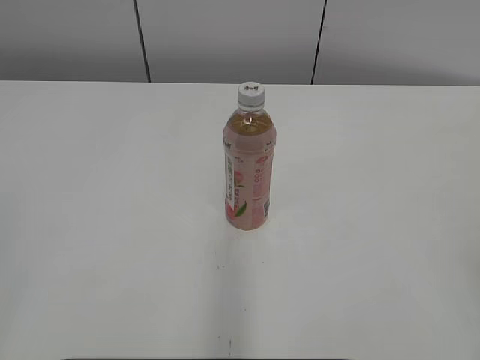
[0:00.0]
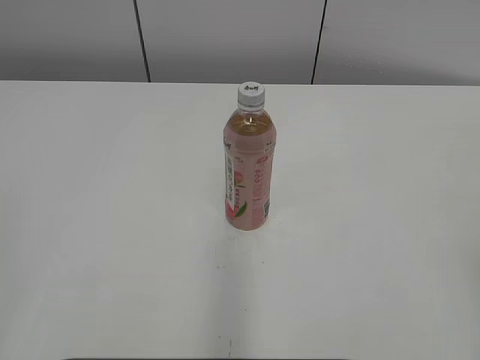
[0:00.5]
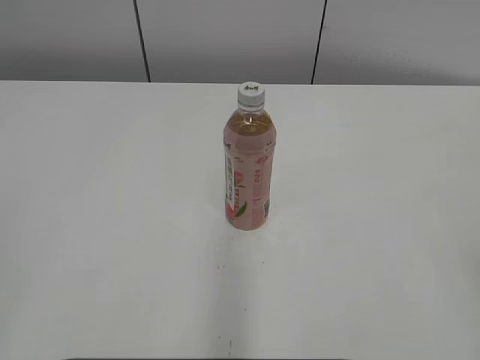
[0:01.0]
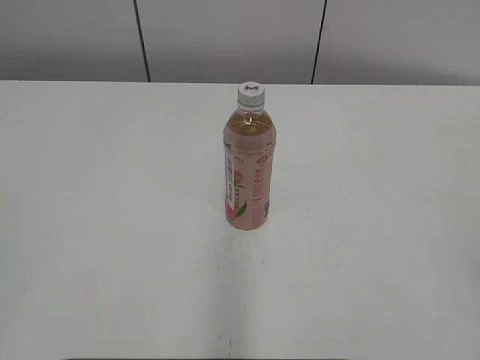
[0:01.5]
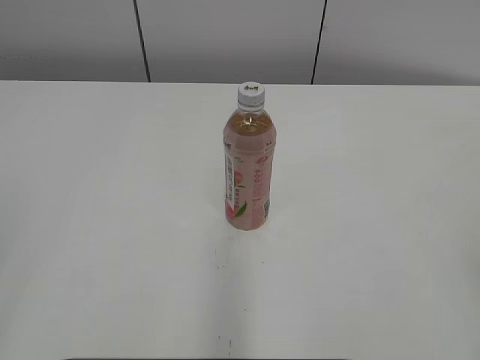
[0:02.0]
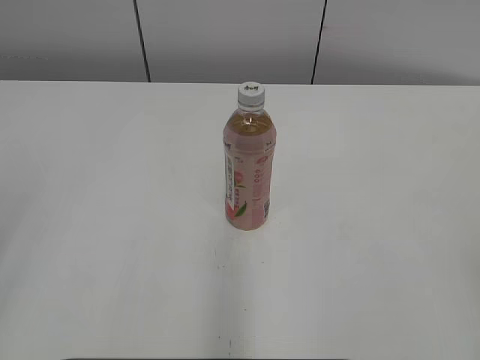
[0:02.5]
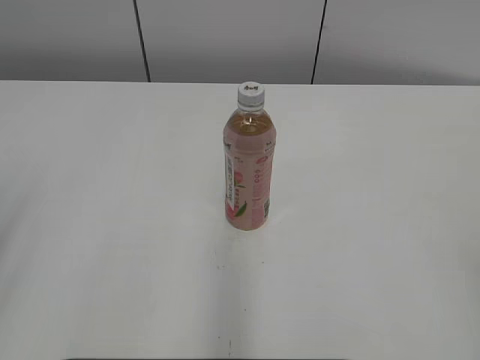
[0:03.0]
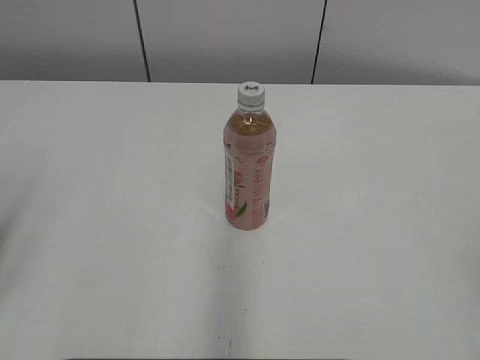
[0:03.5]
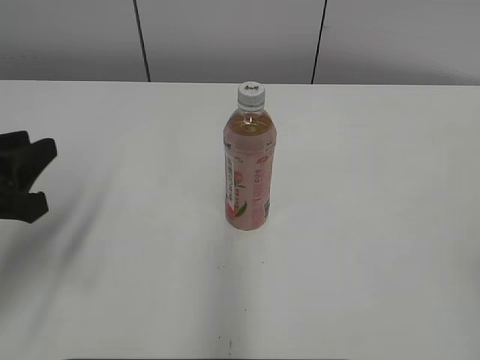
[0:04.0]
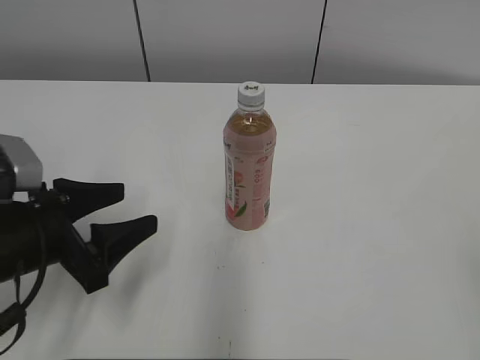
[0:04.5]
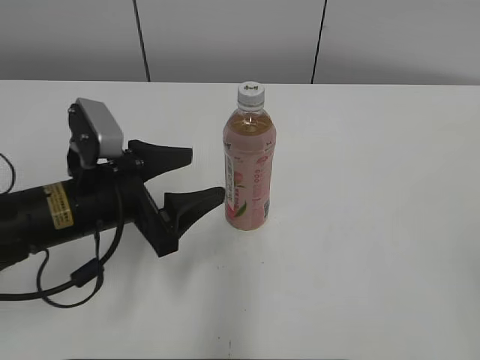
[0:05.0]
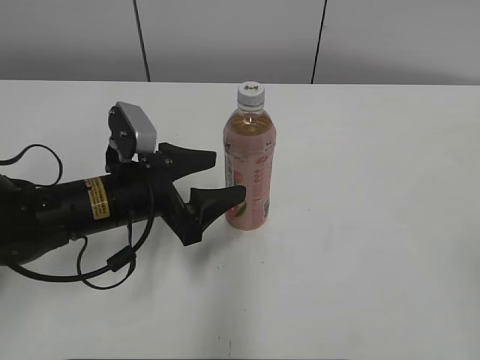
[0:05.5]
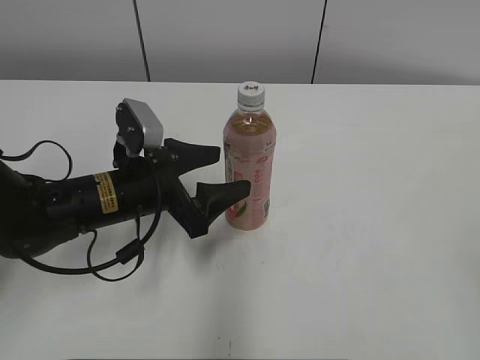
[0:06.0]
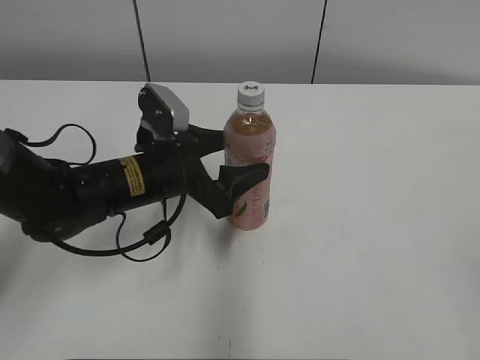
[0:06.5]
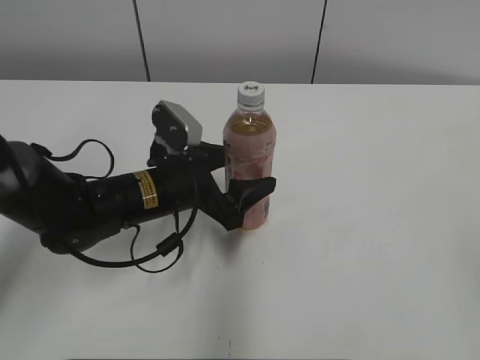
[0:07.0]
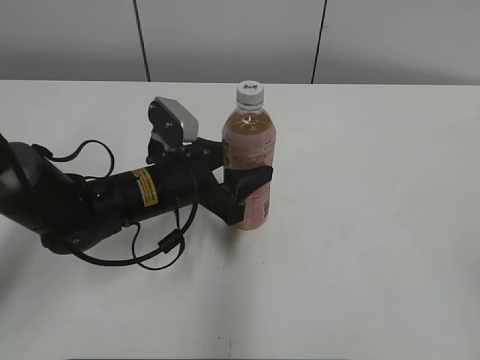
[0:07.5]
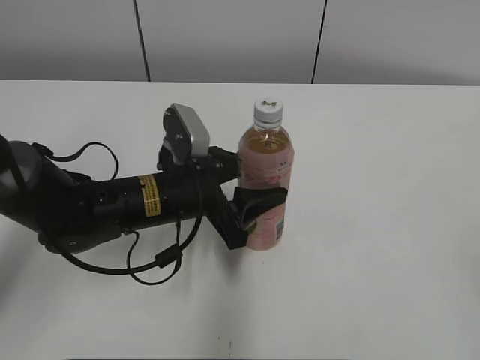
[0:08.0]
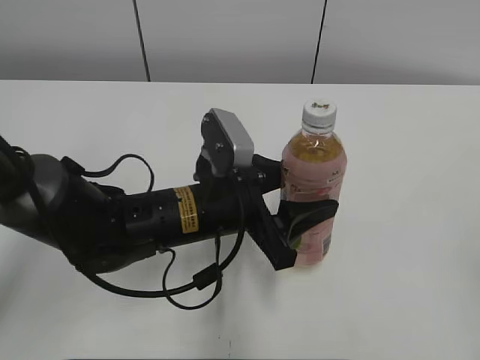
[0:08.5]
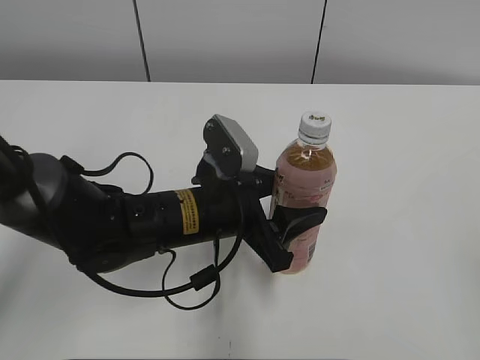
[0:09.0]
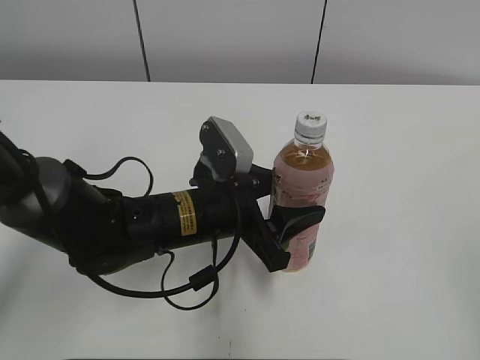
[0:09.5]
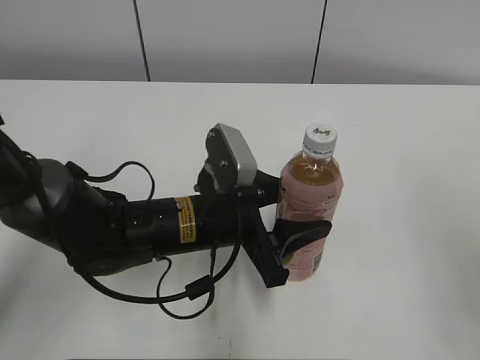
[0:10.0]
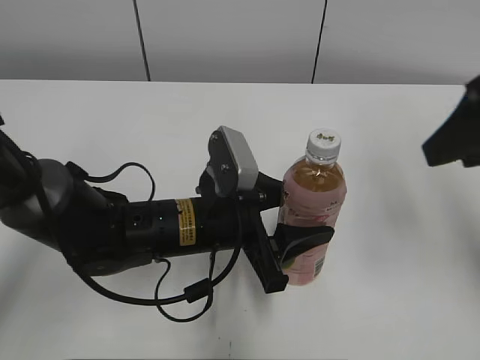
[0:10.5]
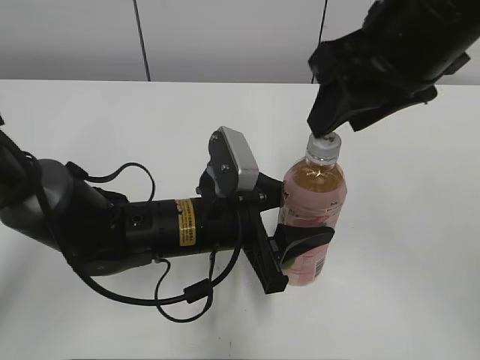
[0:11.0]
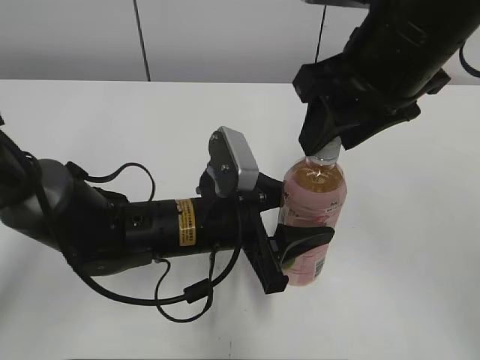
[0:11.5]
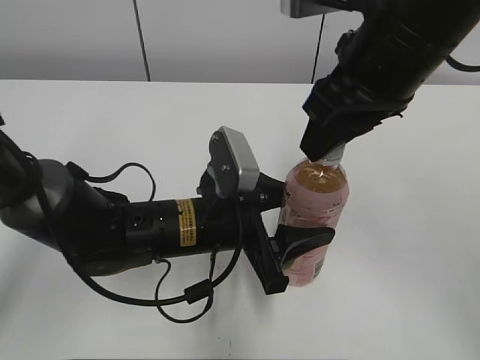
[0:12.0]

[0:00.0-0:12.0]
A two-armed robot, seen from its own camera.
Step, 0.0 to 7.5 s: Grab the Peach Oolong Tea with the left hand.
Step, 8.0 to 9.5 s: Move the Peach Oolong Tea from left to right.
2.0 to 4.0 s: The left gripper is displaced forward and downward by about 25 cm.
4.0 to 6.0 s: The left gripper moves to the right, forward and downward, approximately 20 cm, and opens.
6.0 to 8.0 s: The left gripper closes its fingers.
8.0 to 10.0 s: The right gripper moves forward, approximately 10 cm. Meanwhile the left gripper changes place by roughly 5 cm.
10.0 to 12.0 s: The right gripper heads forward and to the left, covering about 25 cm, and closes up.

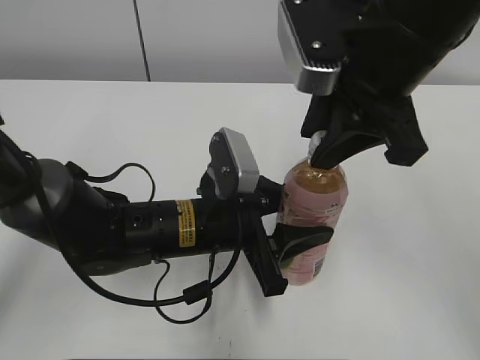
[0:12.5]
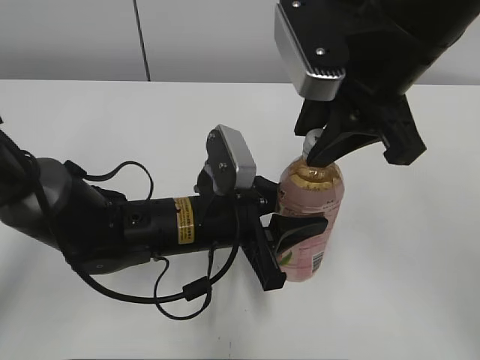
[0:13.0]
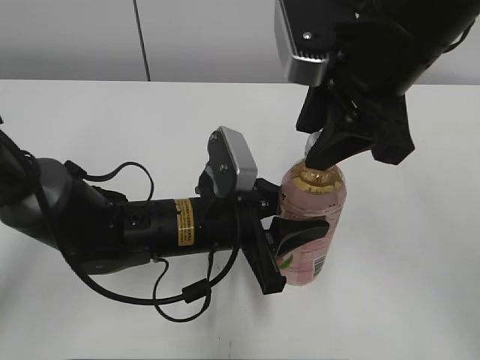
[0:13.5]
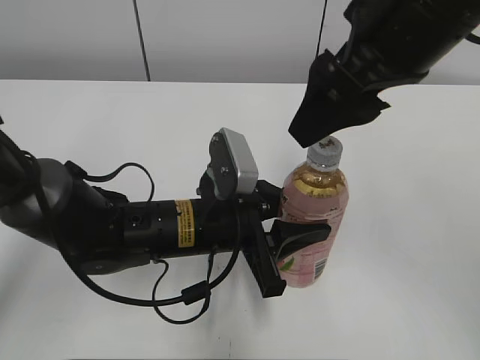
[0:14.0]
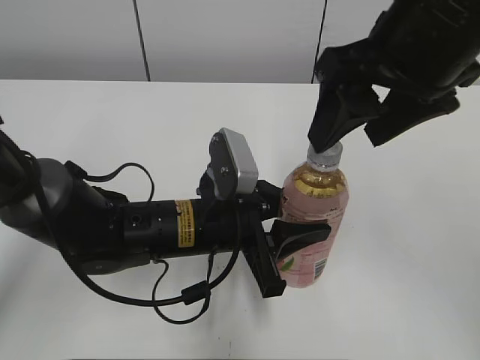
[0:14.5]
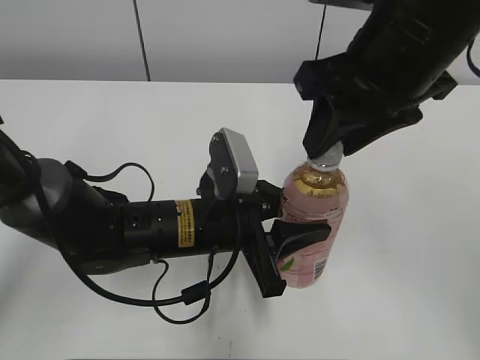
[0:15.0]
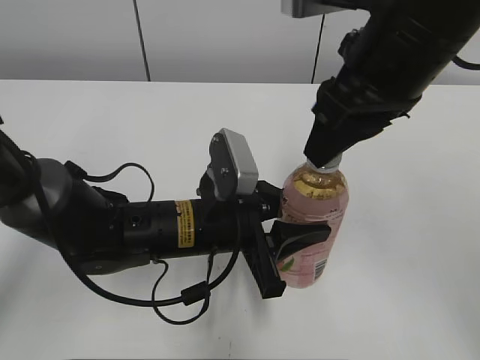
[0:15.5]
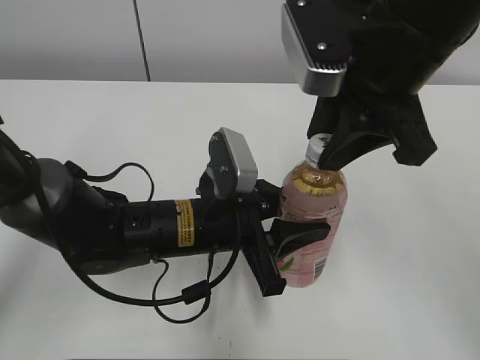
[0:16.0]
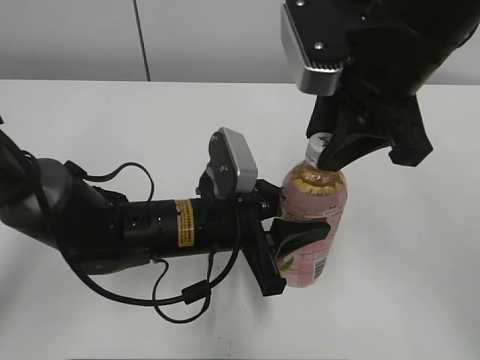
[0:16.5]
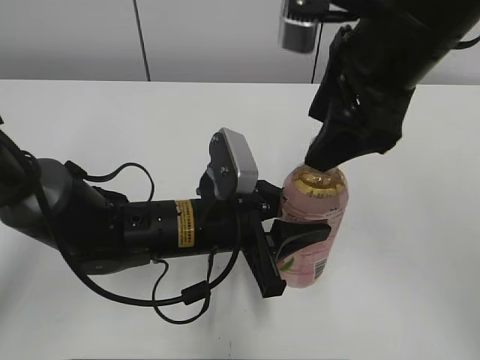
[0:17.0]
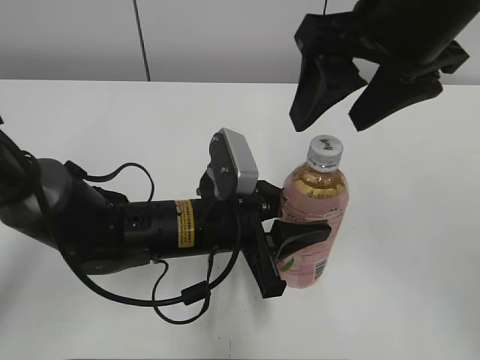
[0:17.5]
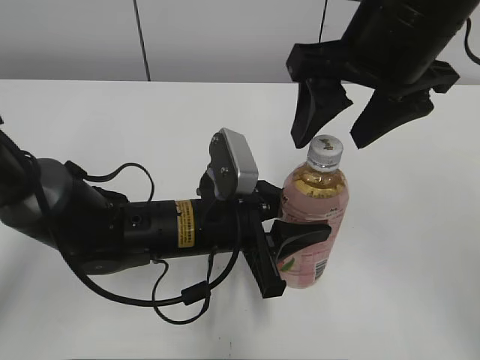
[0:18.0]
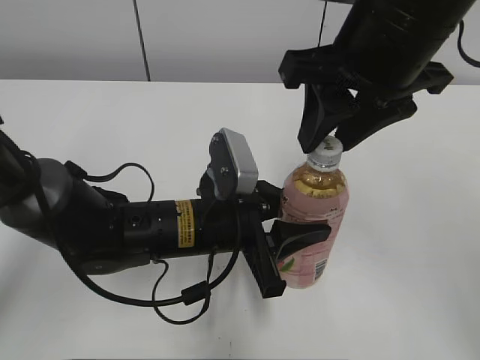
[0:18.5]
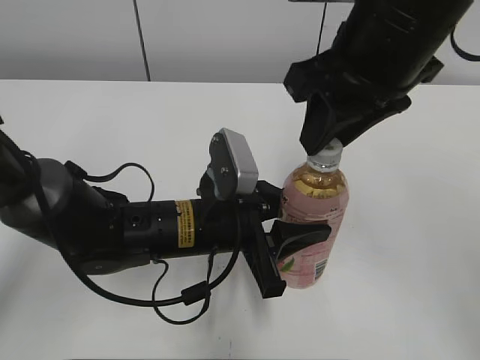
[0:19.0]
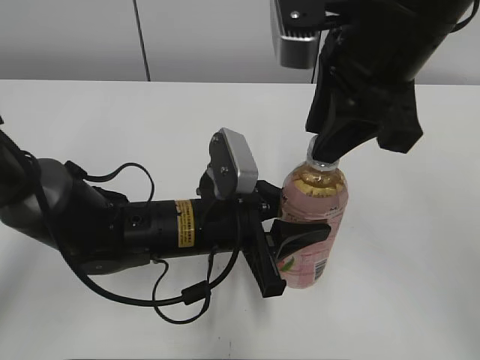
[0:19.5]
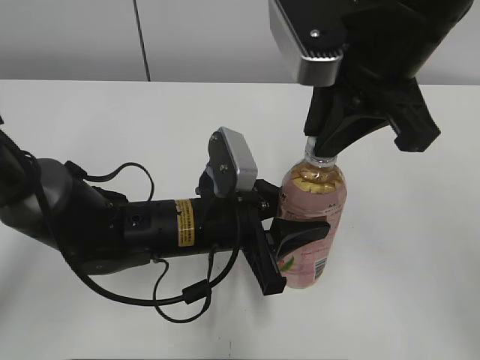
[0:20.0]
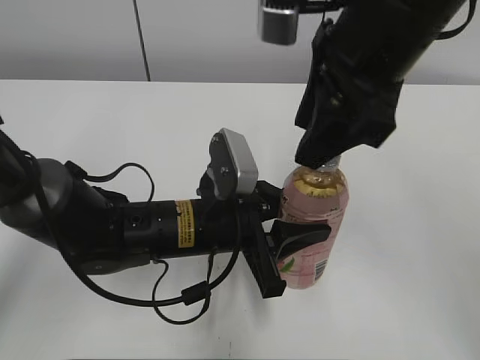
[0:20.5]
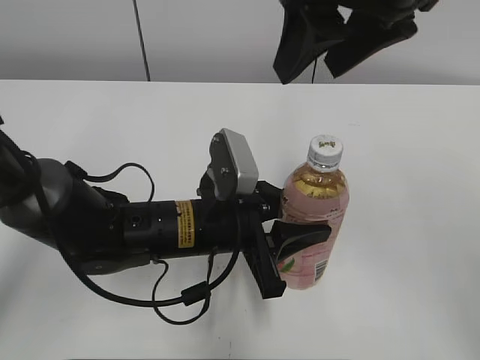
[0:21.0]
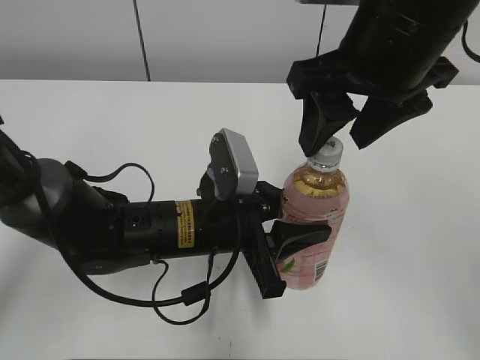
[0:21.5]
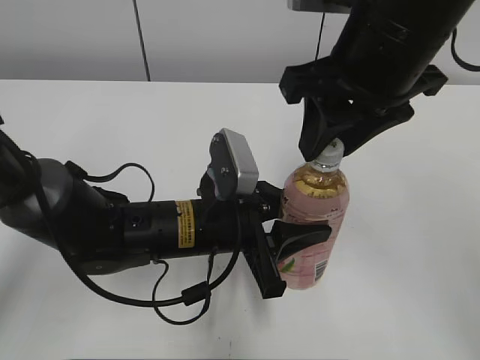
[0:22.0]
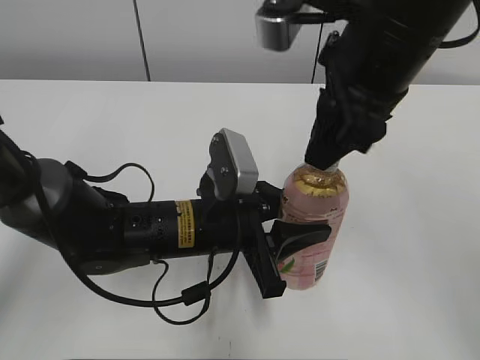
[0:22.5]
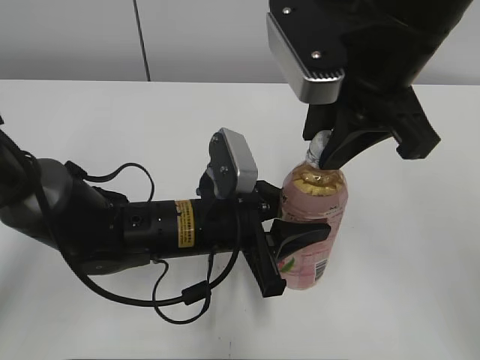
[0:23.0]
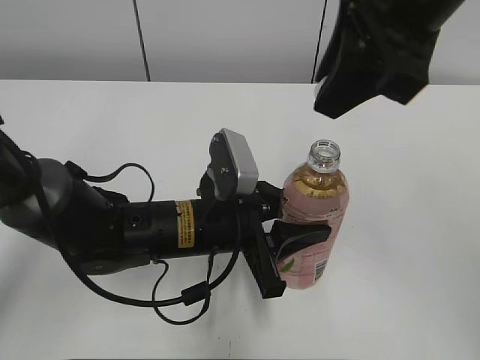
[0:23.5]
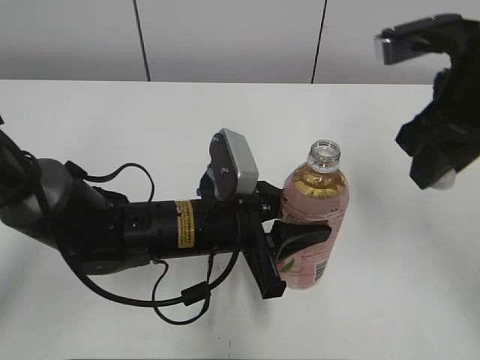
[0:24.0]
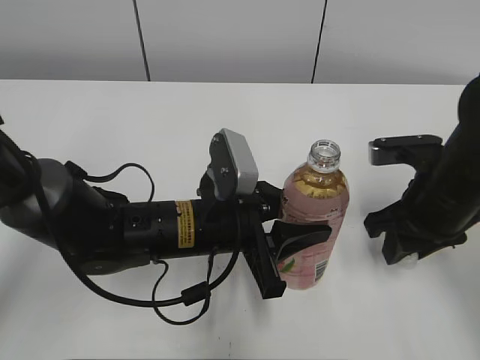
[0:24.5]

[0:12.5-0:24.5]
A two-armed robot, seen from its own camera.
12.5 to 14.5 s: The right gripper opens its fingers.
14.5 to 16.5 s: The right gripper closes its fingers.
16.5 to 18.5 s: The right gripper opens, then closes again.
20.5 to 22.5 s: The right gripper closes its fingers.
22.5 to 24.5 s: The right gripper goes about 20 cm downward and to the right.

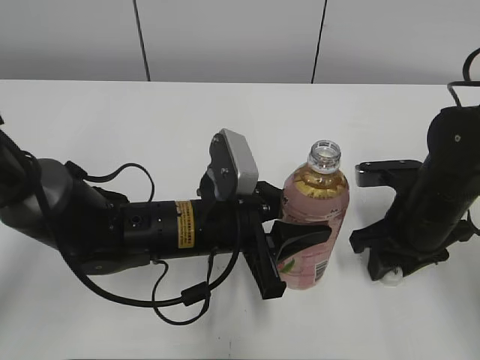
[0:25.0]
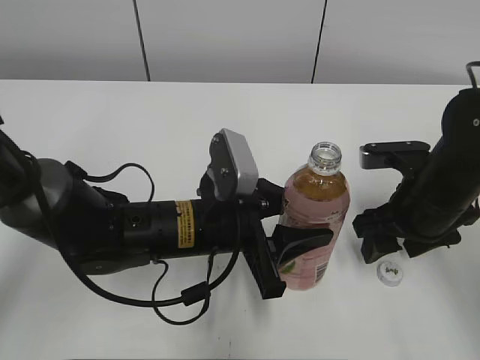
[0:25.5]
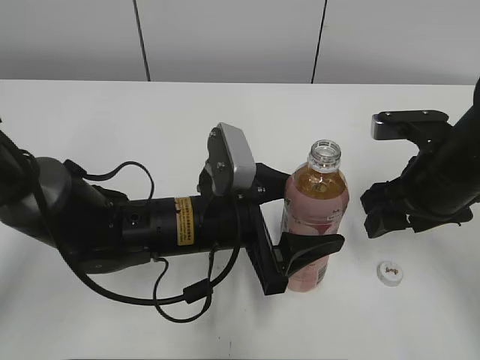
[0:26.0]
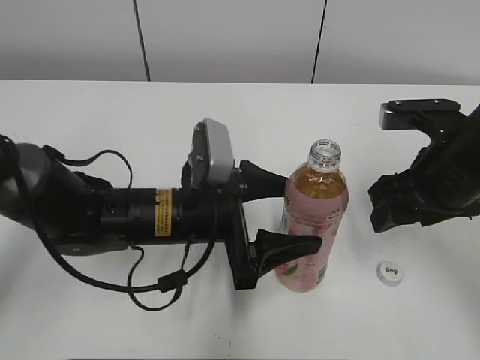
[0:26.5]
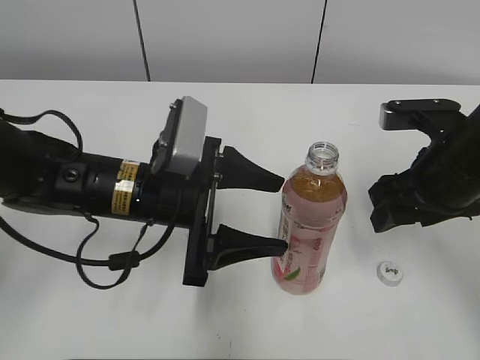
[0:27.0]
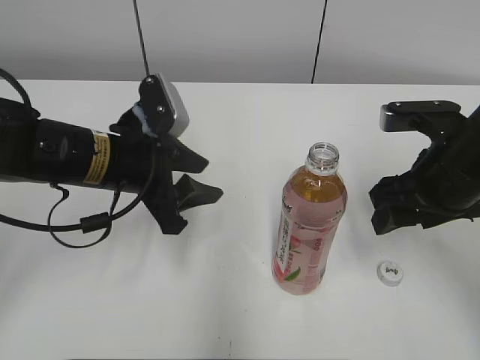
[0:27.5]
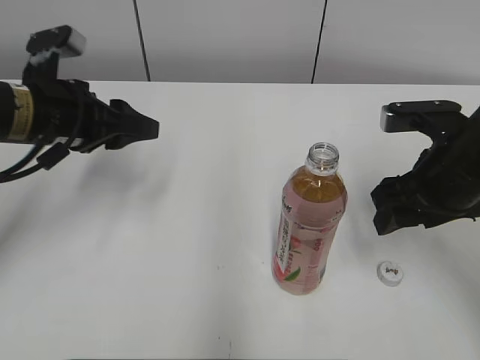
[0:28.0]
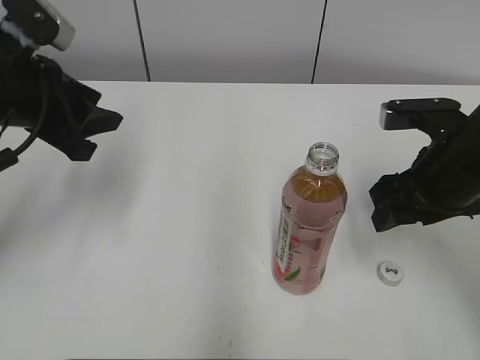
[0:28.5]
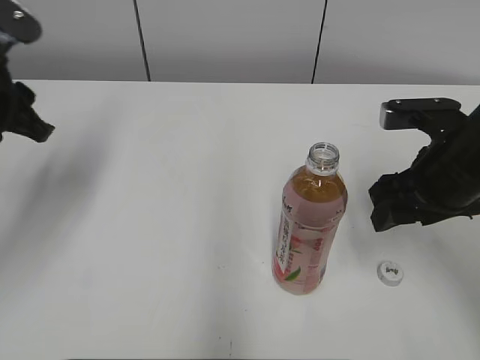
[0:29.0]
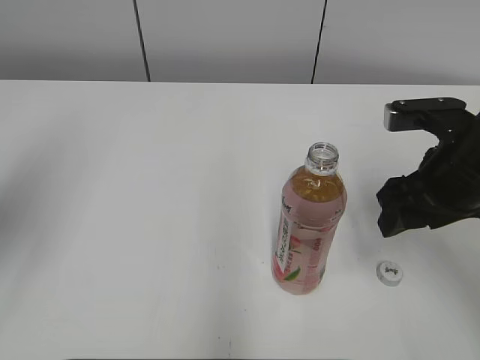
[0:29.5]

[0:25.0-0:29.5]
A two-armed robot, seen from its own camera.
Step, 26.0 to 26.5 s: Place the Peach Oolong Tea with the left hand.
25.0 to 27.0 s: The right gripper is displaced upward by about 10 cm, and opens up, while the left gripper changes place by roughly 5 cm, and opens up.
27.0 to 29.5 s: The left gripper shifts some 25 cm to the left and upward, and closes up.
